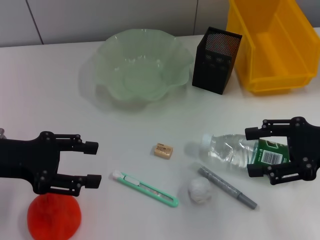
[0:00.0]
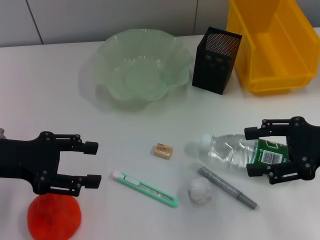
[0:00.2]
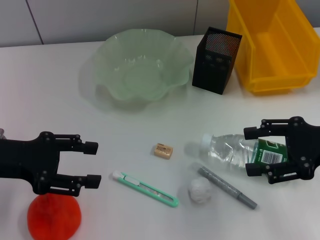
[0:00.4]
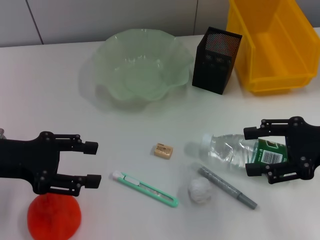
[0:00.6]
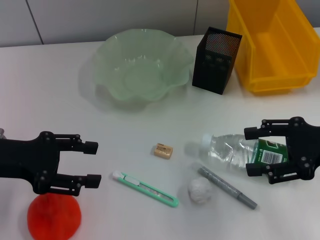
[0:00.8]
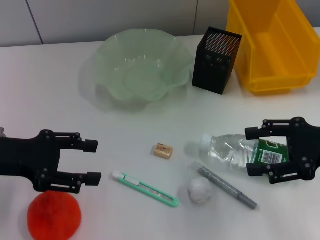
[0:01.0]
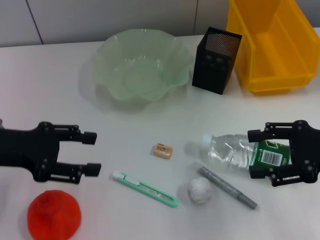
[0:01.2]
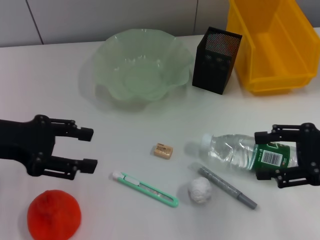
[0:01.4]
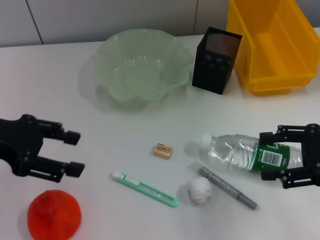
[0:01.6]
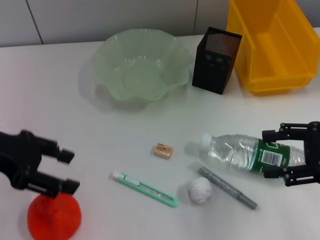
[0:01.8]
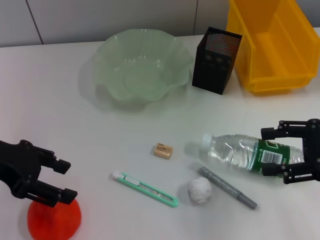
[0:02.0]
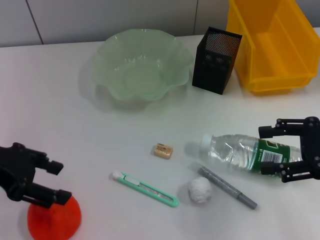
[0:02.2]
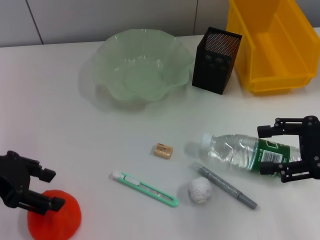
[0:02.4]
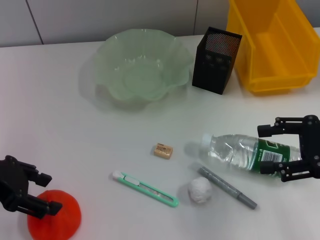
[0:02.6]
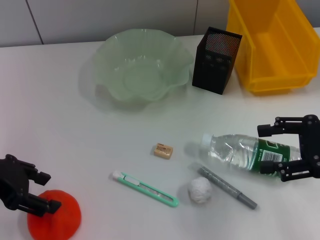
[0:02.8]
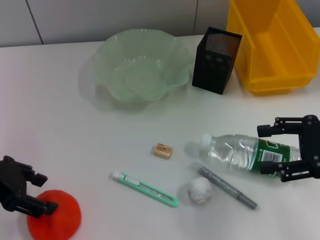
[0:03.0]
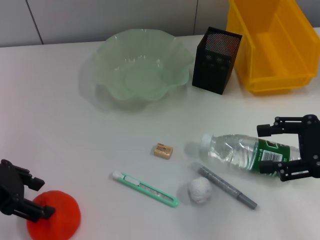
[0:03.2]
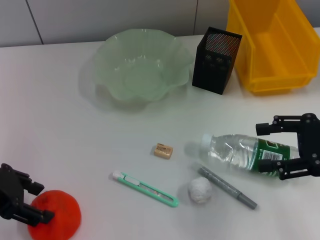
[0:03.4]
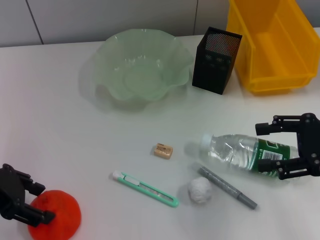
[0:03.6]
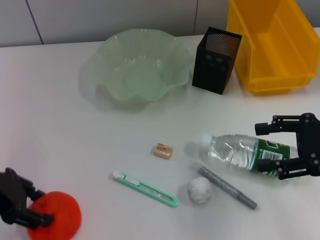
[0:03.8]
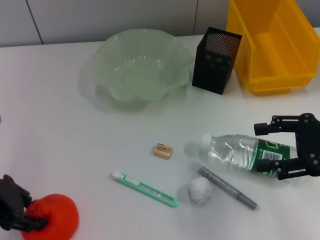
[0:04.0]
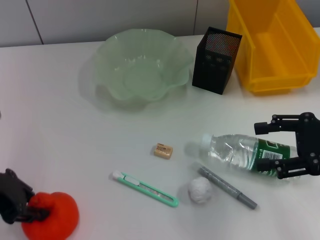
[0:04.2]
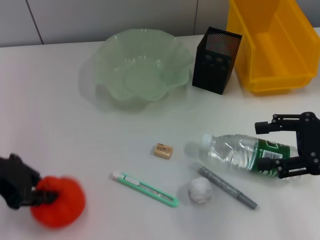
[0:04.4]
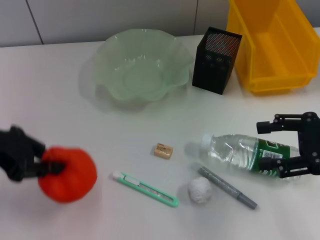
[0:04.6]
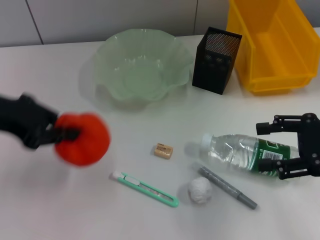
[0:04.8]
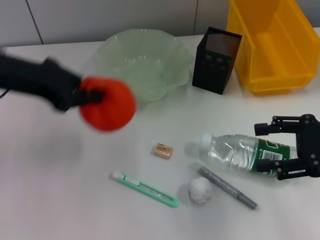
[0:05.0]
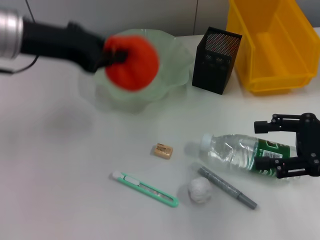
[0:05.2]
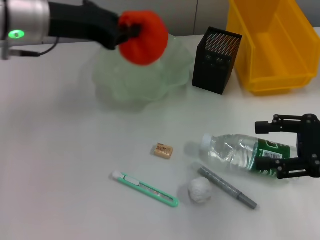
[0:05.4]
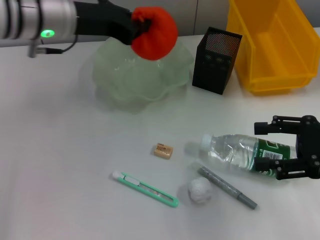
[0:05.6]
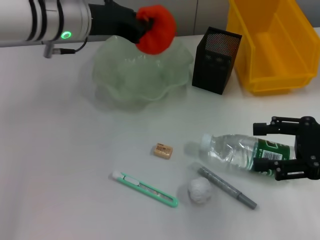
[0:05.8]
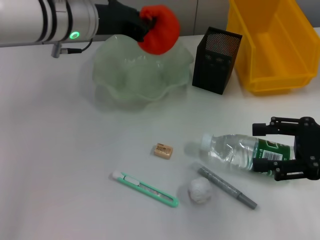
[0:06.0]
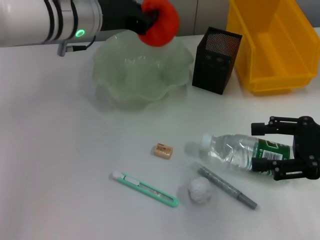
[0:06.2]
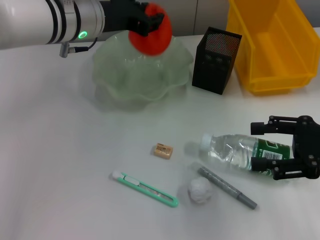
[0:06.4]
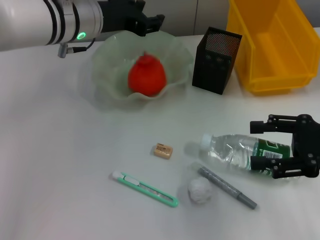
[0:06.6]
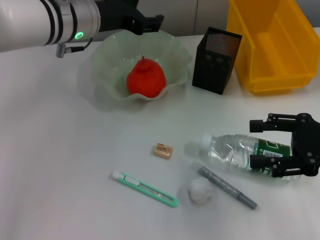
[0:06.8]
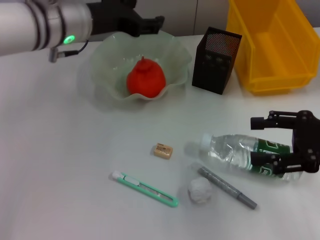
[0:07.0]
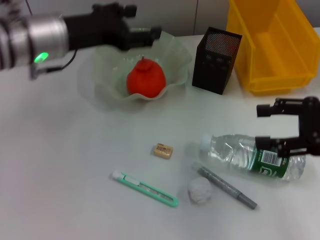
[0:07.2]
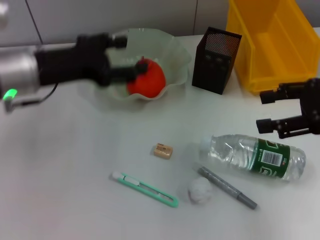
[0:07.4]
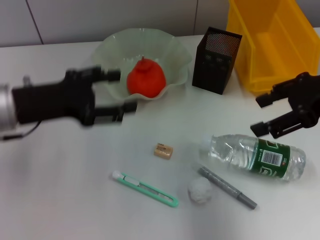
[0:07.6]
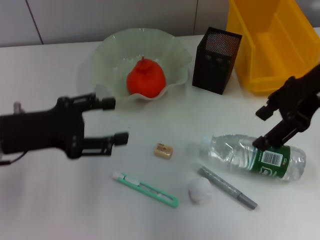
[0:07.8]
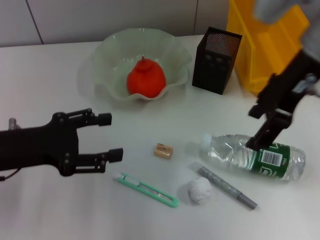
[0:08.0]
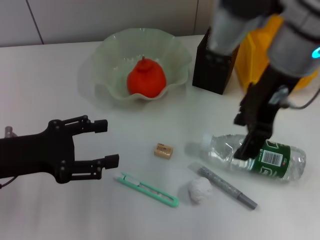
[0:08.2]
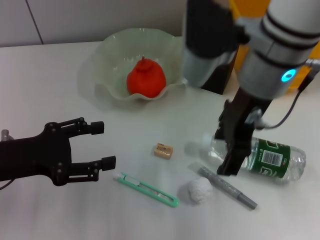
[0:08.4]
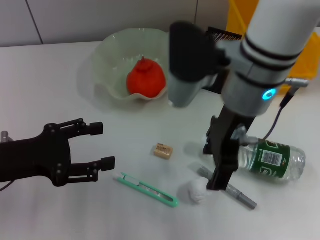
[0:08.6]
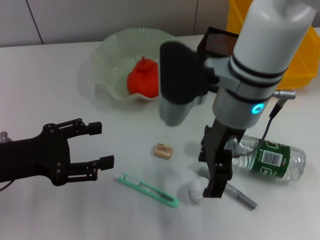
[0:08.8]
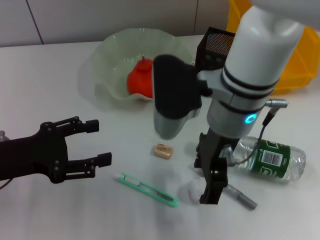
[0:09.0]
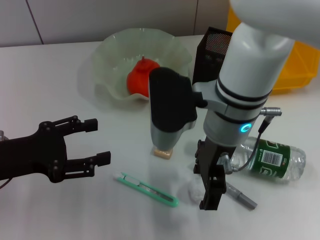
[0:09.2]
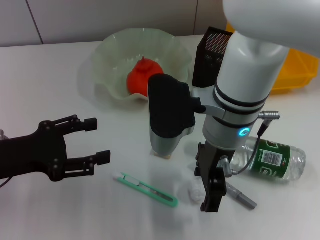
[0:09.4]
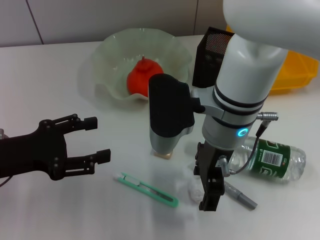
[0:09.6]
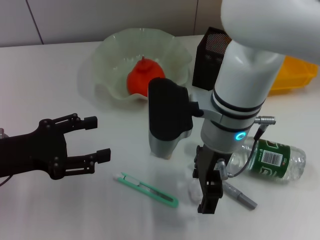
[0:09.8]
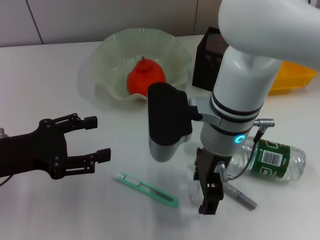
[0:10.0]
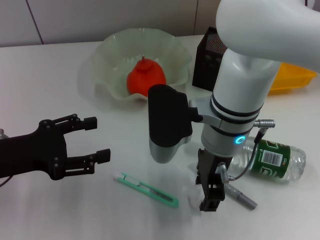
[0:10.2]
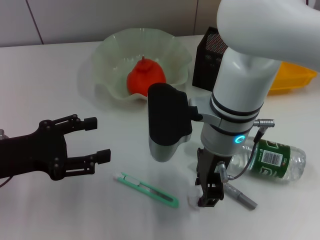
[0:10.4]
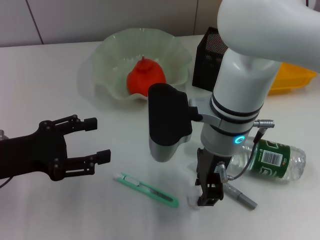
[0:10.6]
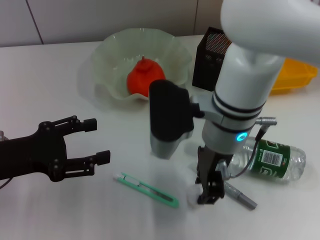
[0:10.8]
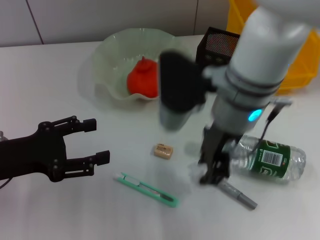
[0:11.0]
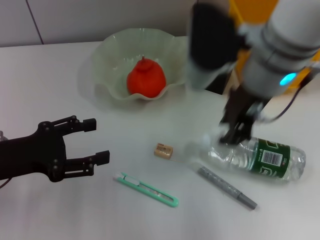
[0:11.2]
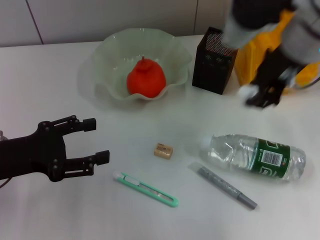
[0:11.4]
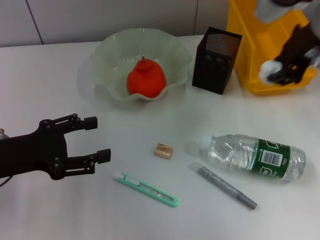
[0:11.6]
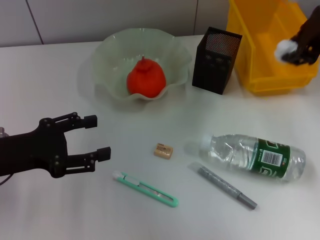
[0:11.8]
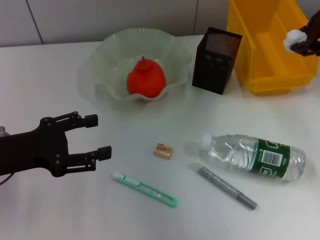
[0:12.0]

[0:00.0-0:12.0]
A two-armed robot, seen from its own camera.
Step, 0:00.0 to 0:03.8: Grab the orange with the left hand.
Step, 0:04.0 to 0:06.6: Place the orange into the fruit bowl with the left hand.
Step, 0:07.0 to 0:10.0: Grab the paper ball with the right hand.
0:00.0 to 0:01.6: The left gripper heads upward, covering about 5 cm.
0:03.0 to 0:04.4: The left gripper closes.
0:04.4 to 0:06.0: The left gripper moves to the right and forward, roughly 20 cm.
0:06.0 to 0:07.6: The right gripper heads upward and forward, covering some 10 cm, while the left gripper heads to the left and backward, covering roughly 15 cm, and opens its fingers.
0:07.6 to 0:09.0: The right gripper goes some 20 cm to the left, while the left gripper moves backward and to the left, some 10 cm.
0:09.0 to 0:10.4: There are only small adjustments of the grippers.
0:10.4 to 0:12.0: The right gripper travels to the right and upward by about 20 cm.

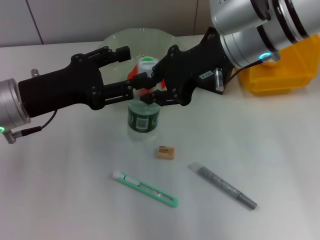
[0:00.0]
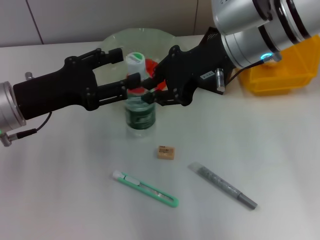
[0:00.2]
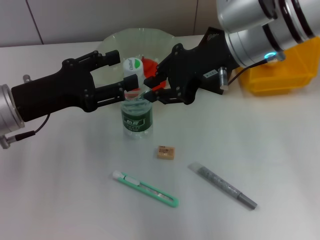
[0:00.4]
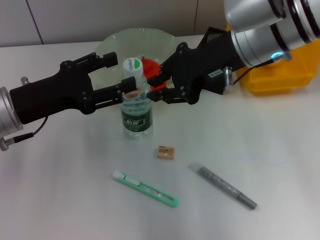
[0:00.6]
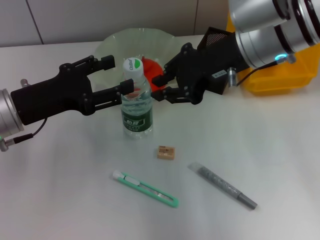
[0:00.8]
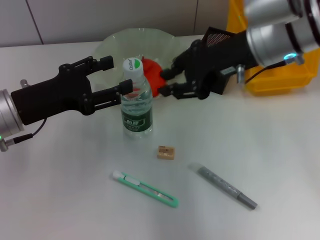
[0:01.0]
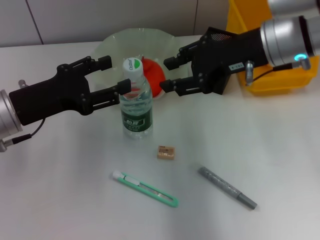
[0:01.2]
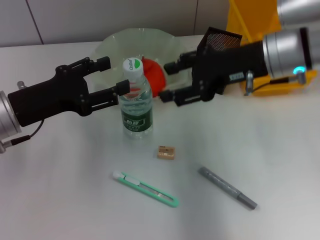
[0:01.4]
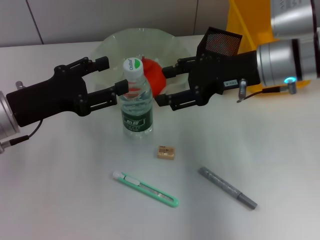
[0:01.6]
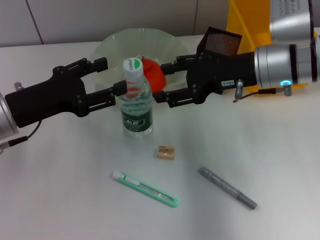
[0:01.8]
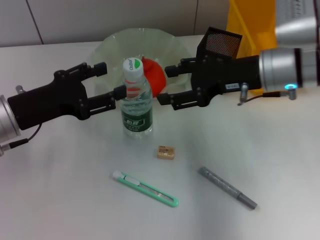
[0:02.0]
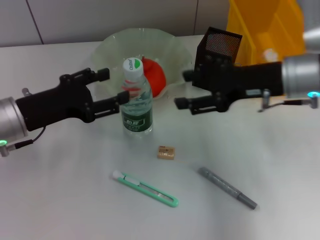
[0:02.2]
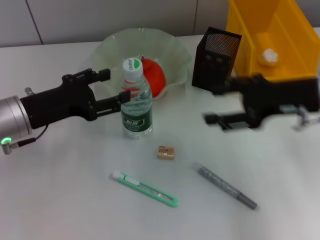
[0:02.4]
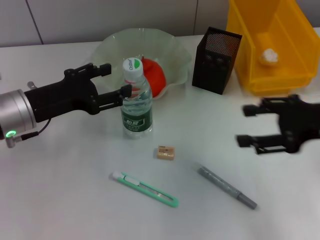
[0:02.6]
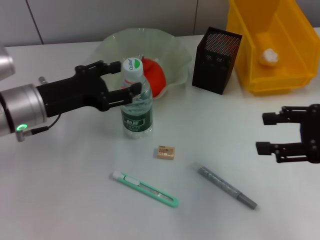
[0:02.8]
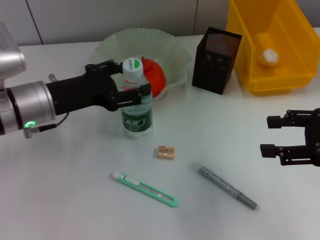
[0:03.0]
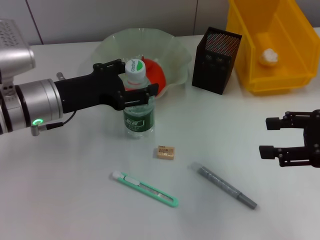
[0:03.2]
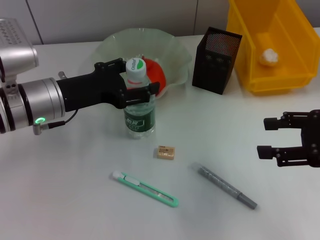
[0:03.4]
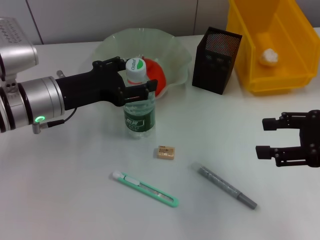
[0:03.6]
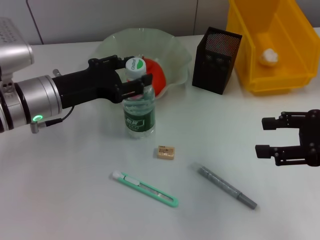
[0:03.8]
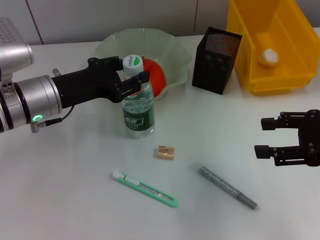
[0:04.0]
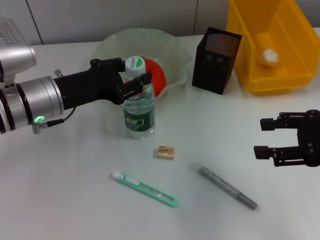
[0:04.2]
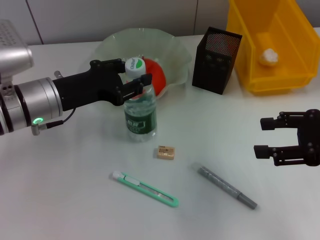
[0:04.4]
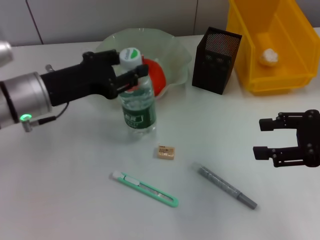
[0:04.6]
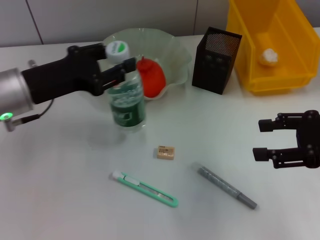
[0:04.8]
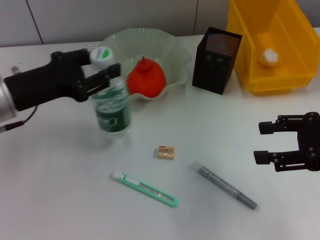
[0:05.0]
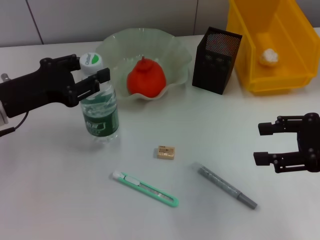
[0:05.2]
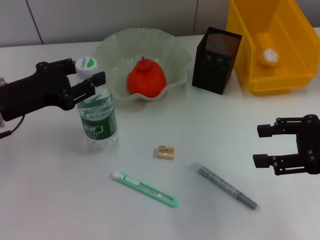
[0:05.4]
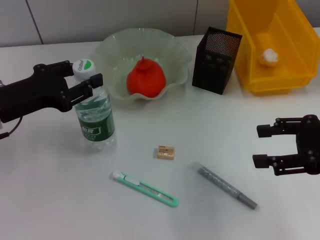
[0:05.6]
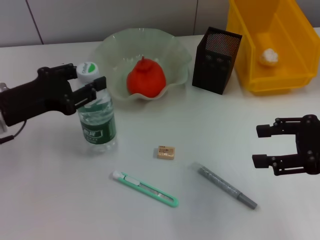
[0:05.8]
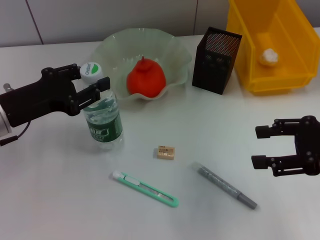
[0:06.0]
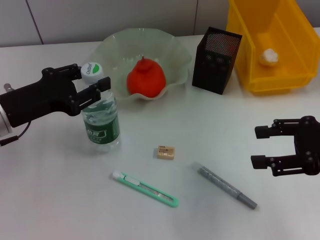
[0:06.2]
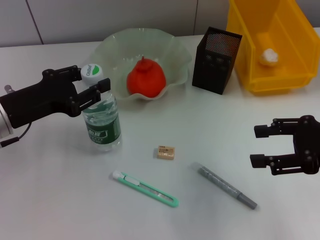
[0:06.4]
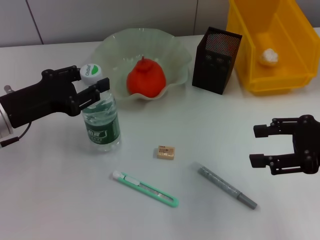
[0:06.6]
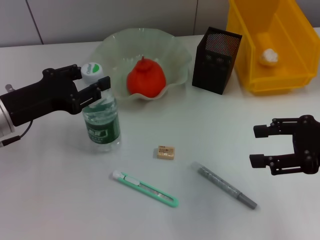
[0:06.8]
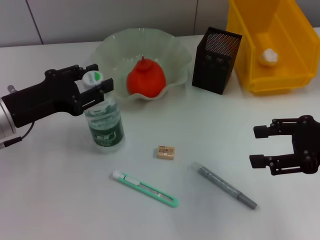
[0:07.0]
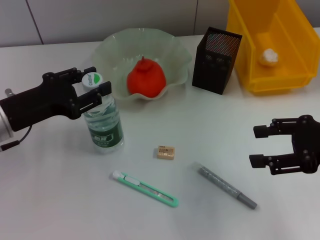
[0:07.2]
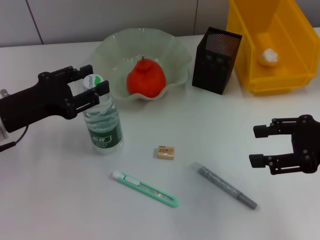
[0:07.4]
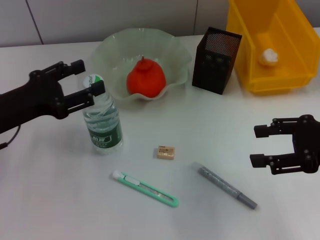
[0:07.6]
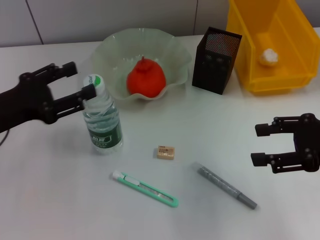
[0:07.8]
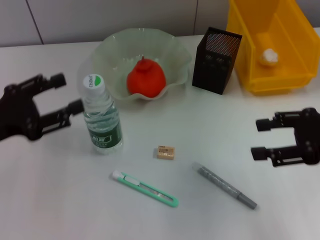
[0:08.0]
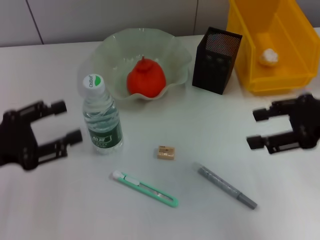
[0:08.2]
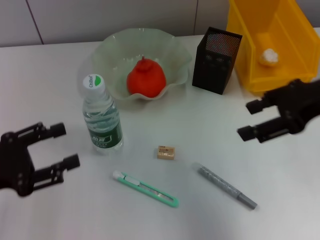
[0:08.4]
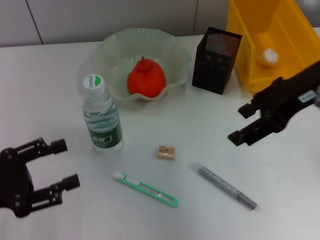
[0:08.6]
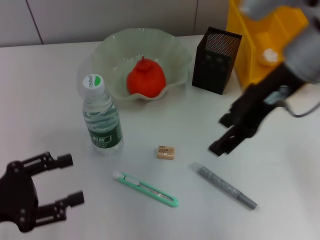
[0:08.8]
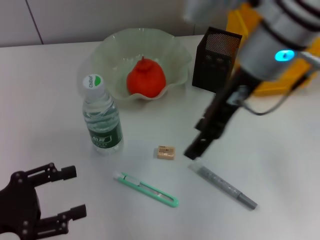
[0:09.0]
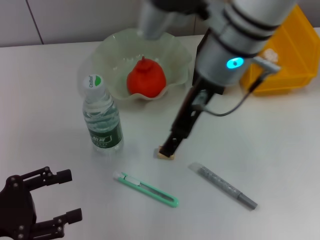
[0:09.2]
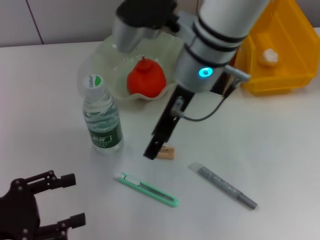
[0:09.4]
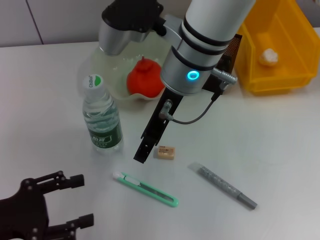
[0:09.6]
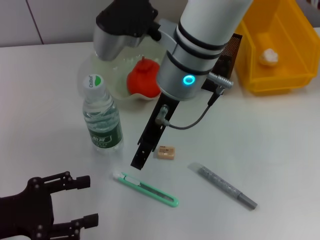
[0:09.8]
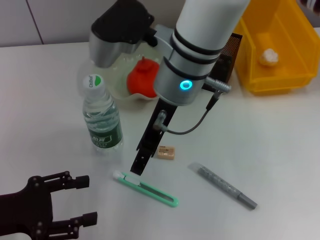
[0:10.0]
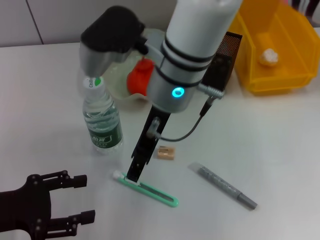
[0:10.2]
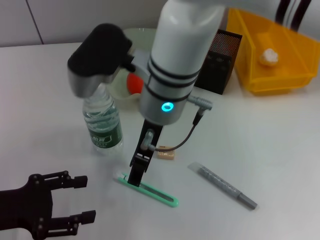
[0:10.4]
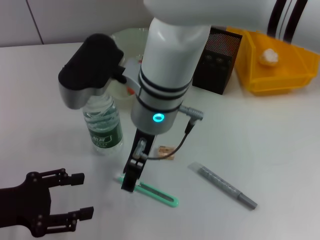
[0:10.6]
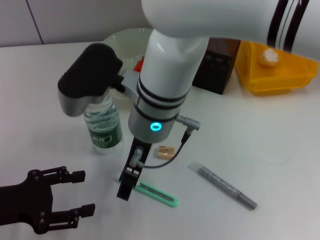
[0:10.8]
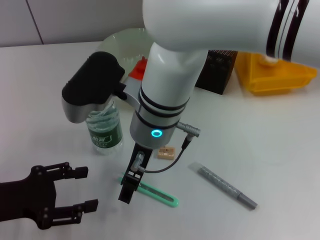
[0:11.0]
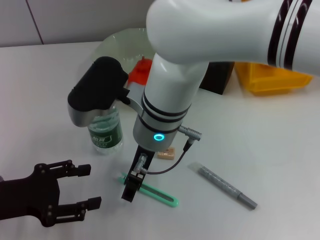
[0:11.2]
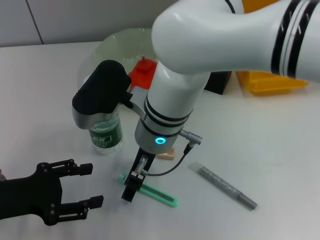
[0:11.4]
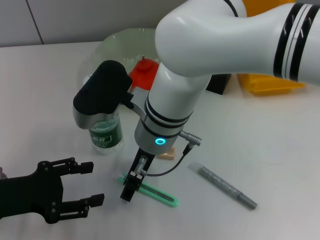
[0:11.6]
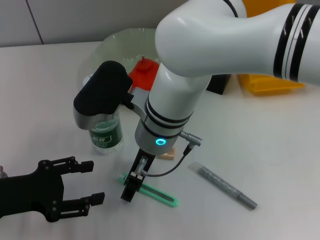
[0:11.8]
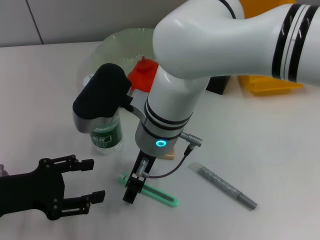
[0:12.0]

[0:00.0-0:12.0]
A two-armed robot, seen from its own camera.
Step, 0:00.0 to 0:04.2: Grab the water bottle with the left hand.
Step, 0:04.4 to 0:07.4: Place the water bottle on the table with the left hand.
0:00.0 to 0:01.6: The right gripper heads to the right and downward, covering approximately 10 cm.
0:01.6 to 0:03.0: The right gripper travels to the right and backward by roughly 20 cm.
0:03.0 to 0:04.4: The left gripper closes up.
0:04.4 to 0:06.0: The left gripper is displaced to the left by some 5 cm.
0:06.0 to 0:07.6: The grippers move only a little.
0:07.6 to 0:09.0: The right gripper goes roughly 25 cm to the left, forward and upward. The left gripper moves backward, about 10 cm.
0:09.0 to 0:10.4: The right gripper heads to the left and downward, covering approximately 15 cm.
0:10.4 to 0:12.0: The right gripper is displaced downward by about 5 cm.
